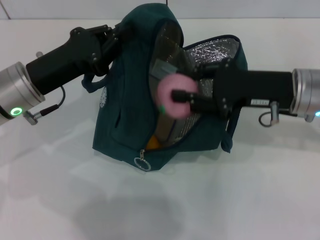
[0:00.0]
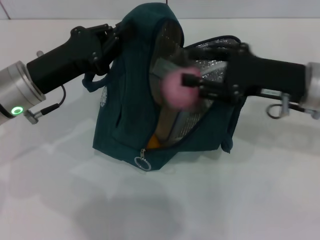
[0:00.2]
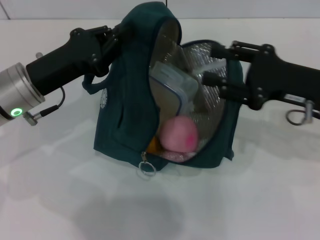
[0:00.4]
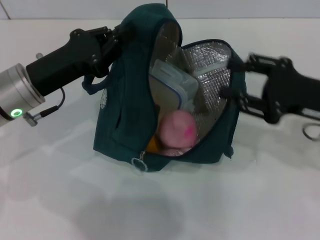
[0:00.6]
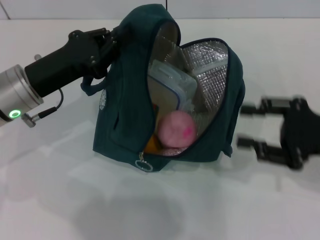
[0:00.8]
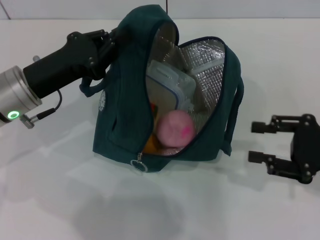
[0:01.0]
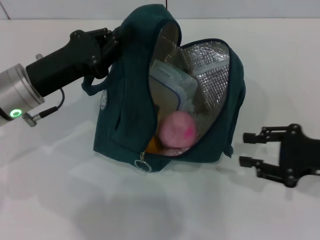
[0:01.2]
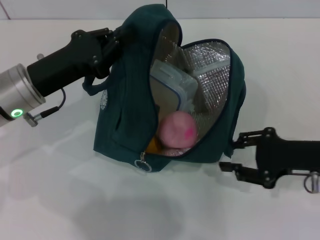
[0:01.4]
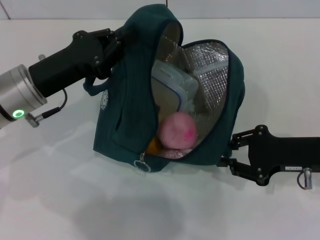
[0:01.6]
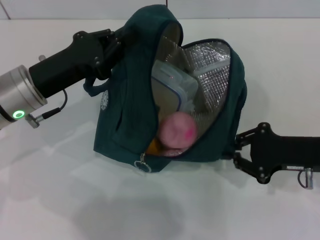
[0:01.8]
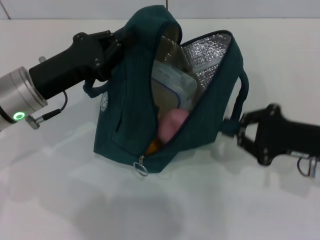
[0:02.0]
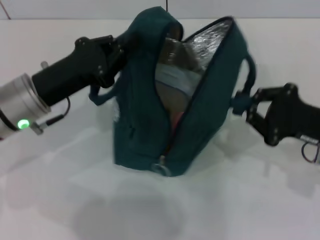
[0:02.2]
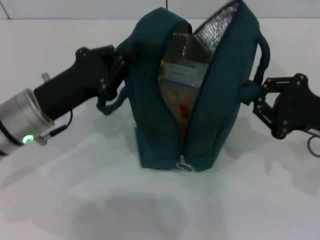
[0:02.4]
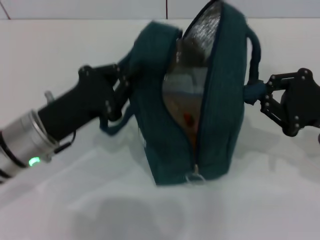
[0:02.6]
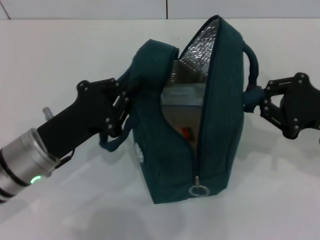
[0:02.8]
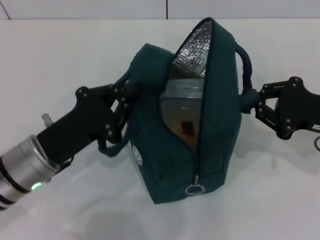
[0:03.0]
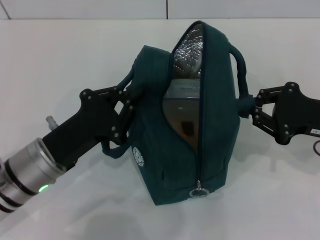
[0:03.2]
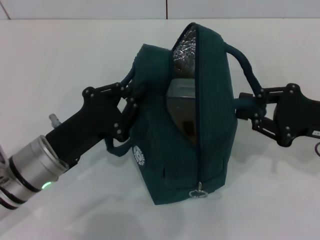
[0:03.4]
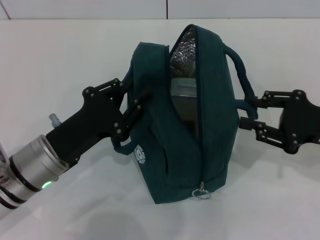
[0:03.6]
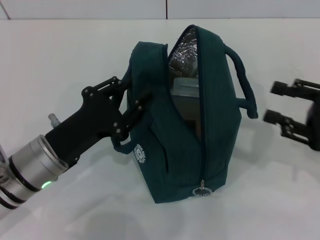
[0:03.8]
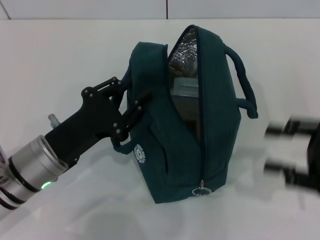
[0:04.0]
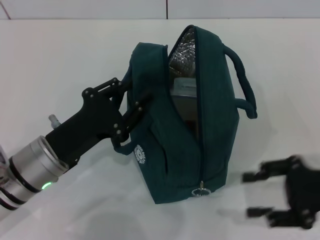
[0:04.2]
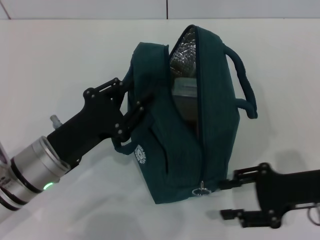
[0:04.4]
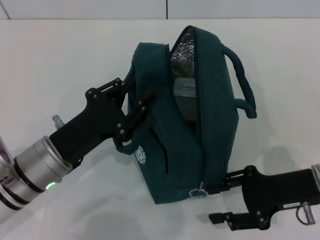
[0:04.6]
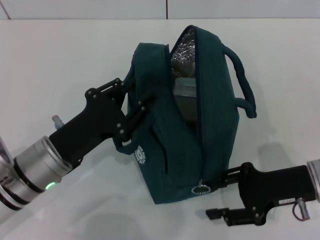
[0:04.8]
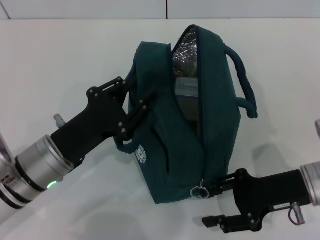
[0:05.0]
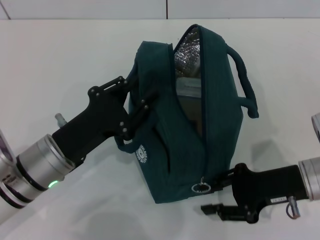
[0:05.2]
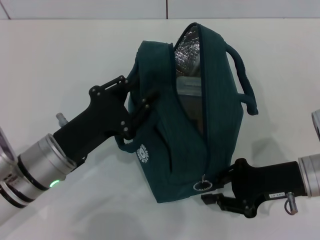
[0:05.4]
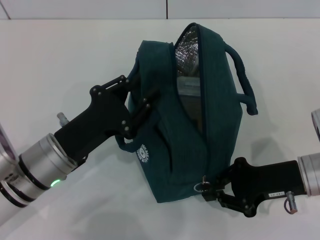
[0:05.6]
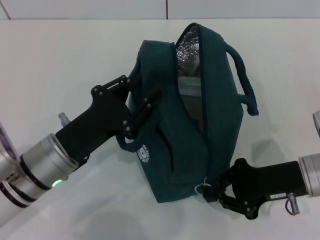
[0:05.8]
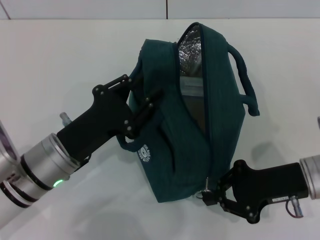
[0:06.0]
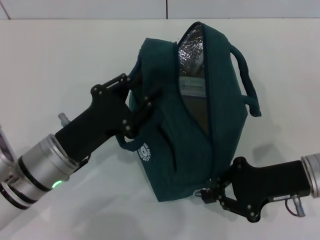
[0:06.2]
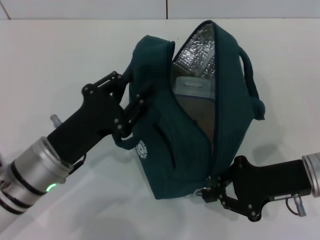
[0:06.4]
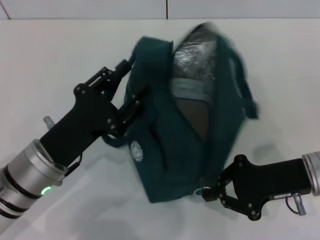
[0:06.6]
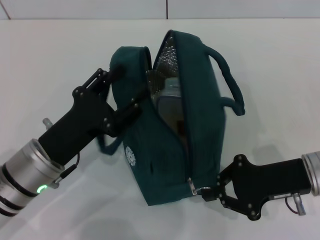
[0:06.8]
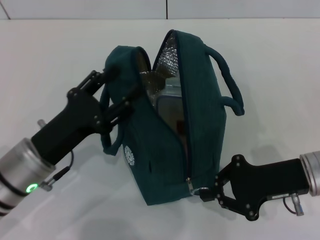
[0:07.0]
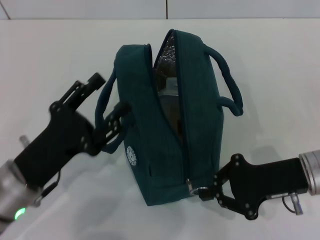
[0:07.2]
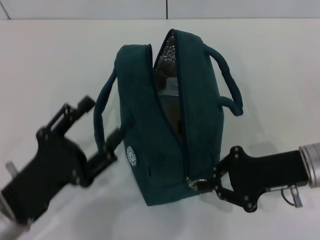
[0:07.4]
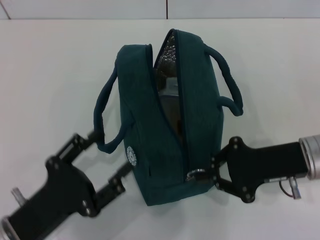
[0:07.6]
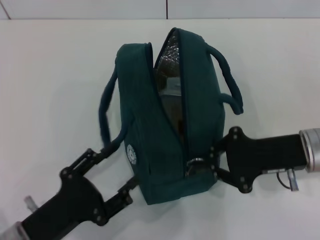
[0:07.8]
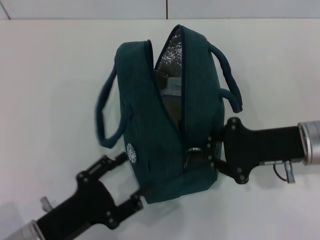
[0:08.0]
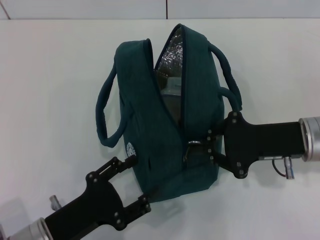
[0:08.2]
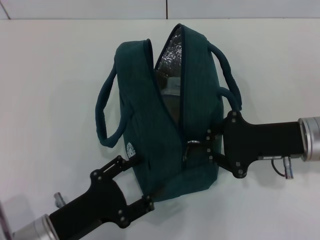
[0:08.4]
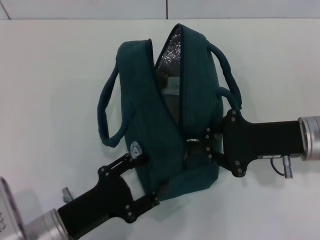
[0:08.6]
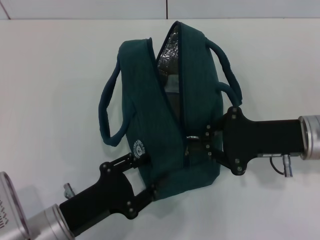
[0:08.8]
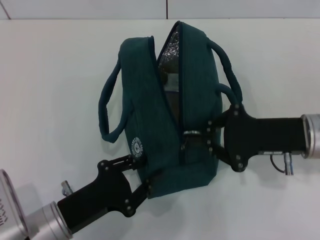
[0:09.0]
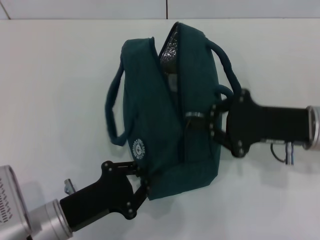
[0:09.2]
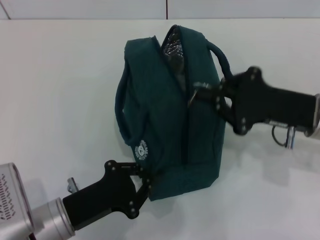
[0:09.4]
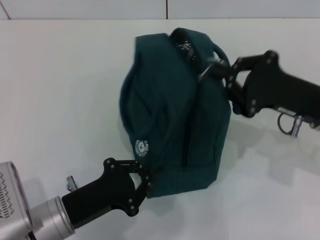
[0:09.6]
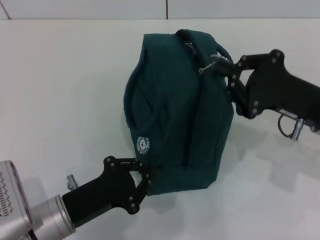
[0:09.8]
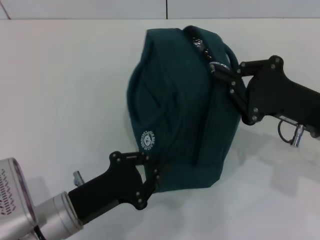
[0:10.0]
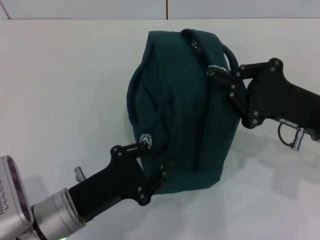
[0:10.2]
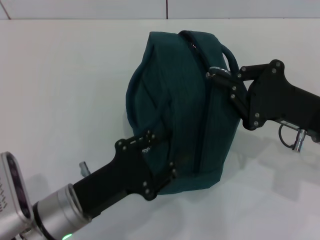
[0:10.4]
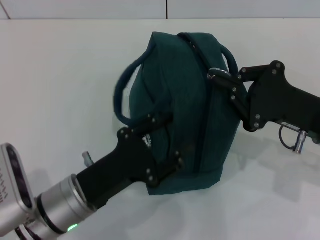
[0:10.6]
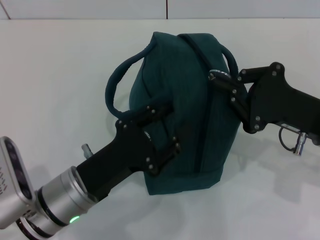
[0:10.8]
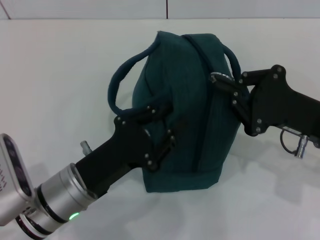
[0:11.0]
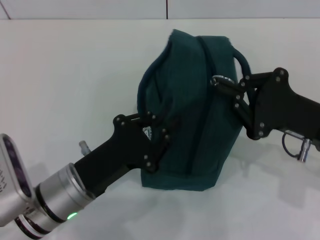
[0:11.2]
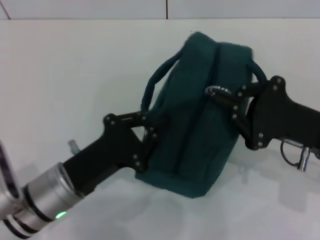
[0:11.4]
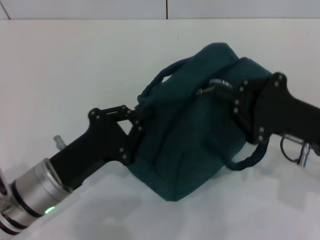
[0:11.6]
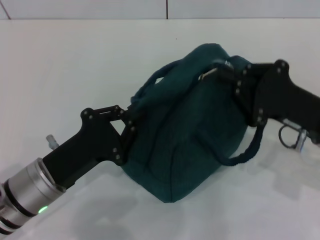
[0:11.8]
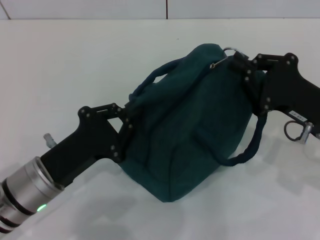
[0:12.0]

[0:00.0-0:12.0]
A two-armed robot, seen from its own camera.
Step, 0:00.4 to 0:03.6: Hold the lunch bag with your right hand.
Step, 0:03.8 to 0:07.0: Hold the lunch bag with your left hand.
0:00.0 to 0:01.6: The right gripper shifts roughly 10 cm downward and to the right.
0:01.6 to 0:03.0: The right gripper closes its fingers. The left gripper is displaced backward and downward by some 10 cm.
0:03.0 to 0:04.4: The right gripper changes place by approximately 5 cm, and opens.
0:04.4 to 0:06.0: The right gripper closes up.
0:06.0 to 0:07.6: The left gripper heads backward, covering roughly 10 cm, and opens up.
0:07.6 to 0:09.0: The left gripper shifts by some 5 cm.

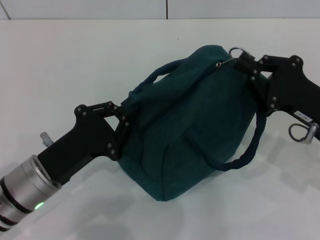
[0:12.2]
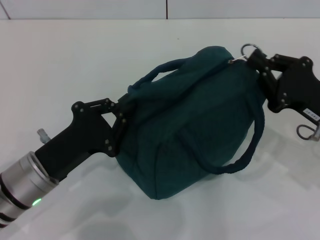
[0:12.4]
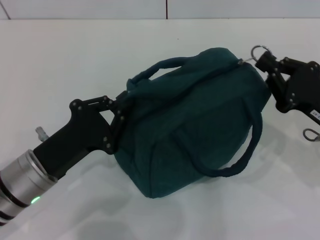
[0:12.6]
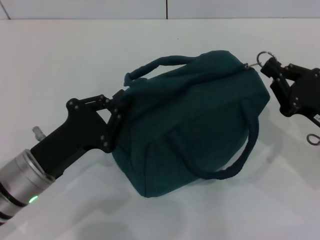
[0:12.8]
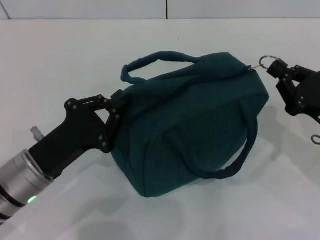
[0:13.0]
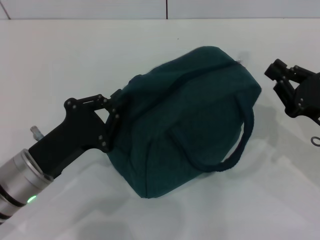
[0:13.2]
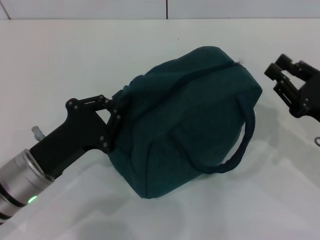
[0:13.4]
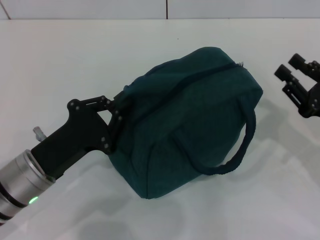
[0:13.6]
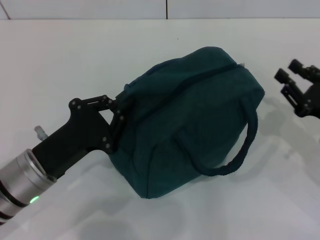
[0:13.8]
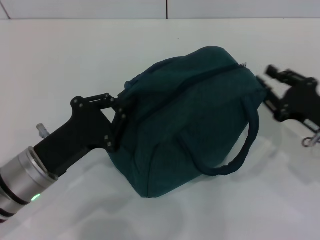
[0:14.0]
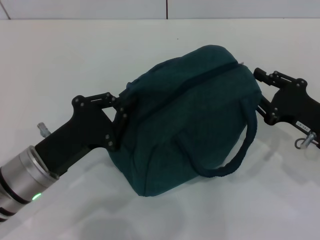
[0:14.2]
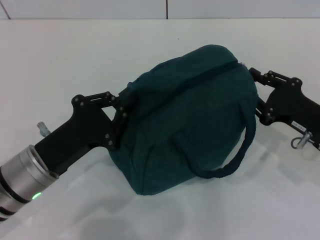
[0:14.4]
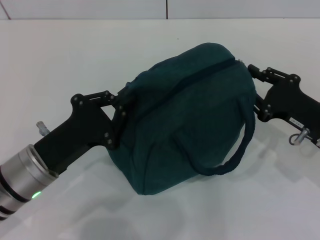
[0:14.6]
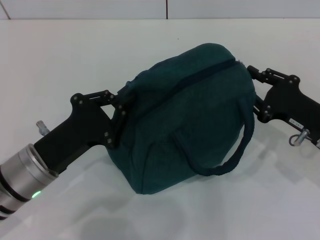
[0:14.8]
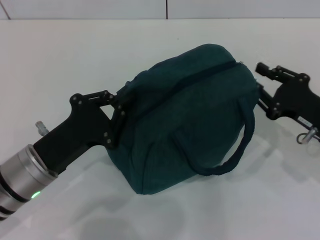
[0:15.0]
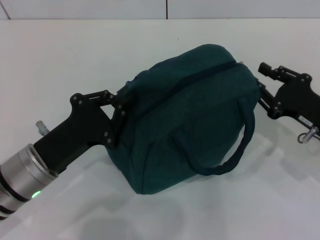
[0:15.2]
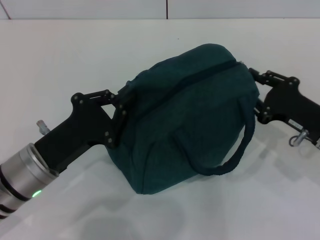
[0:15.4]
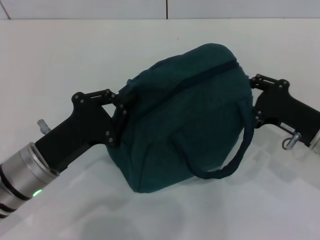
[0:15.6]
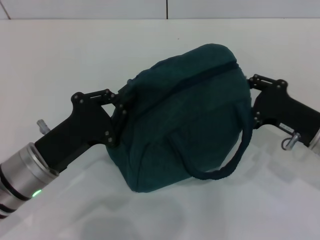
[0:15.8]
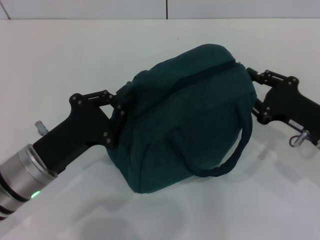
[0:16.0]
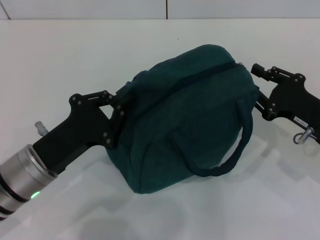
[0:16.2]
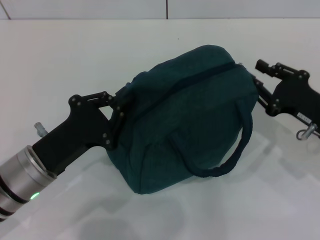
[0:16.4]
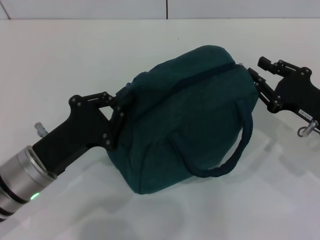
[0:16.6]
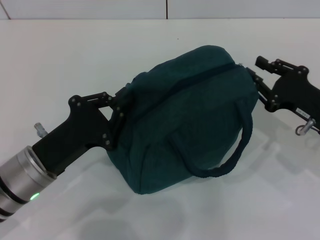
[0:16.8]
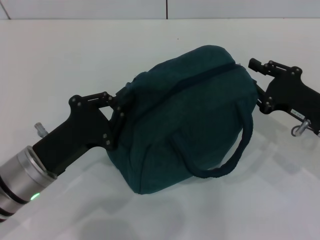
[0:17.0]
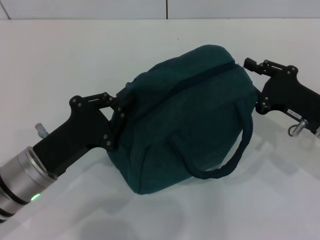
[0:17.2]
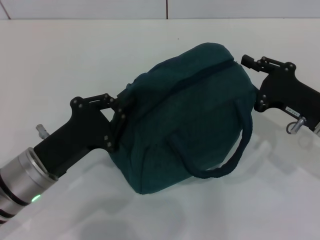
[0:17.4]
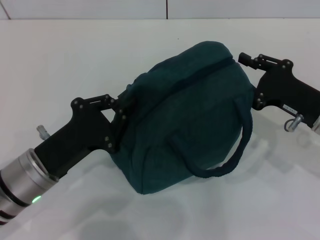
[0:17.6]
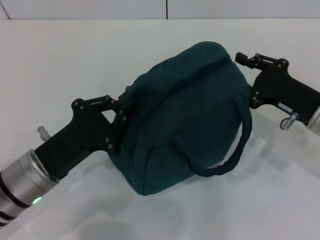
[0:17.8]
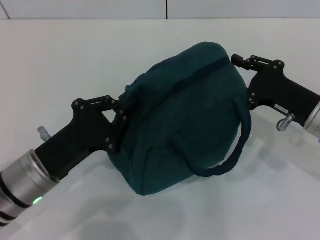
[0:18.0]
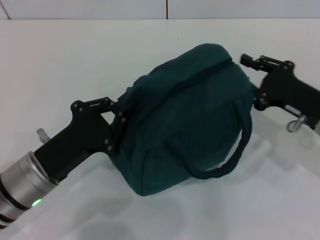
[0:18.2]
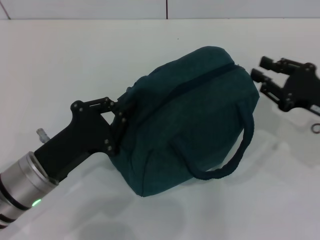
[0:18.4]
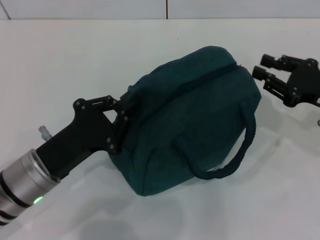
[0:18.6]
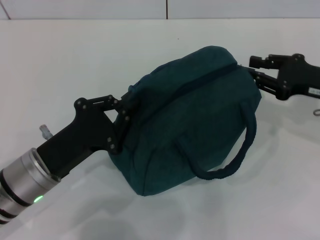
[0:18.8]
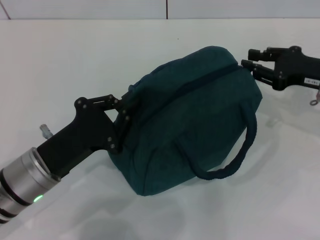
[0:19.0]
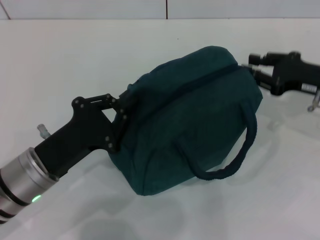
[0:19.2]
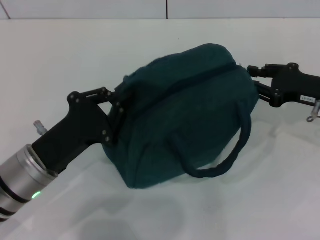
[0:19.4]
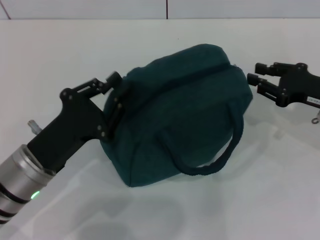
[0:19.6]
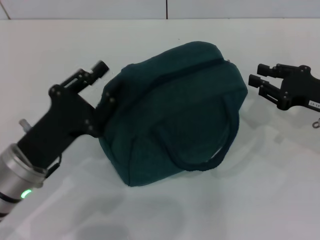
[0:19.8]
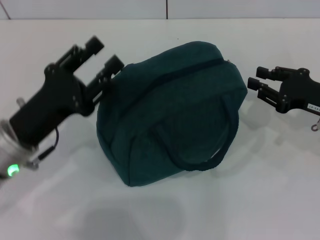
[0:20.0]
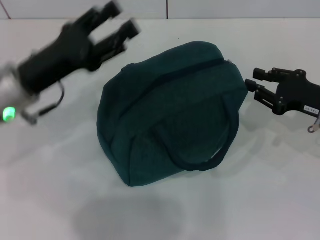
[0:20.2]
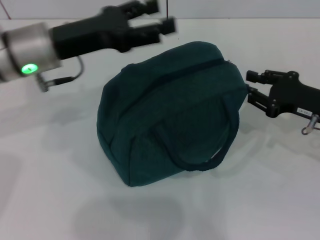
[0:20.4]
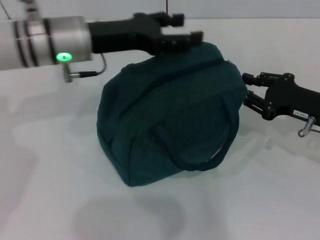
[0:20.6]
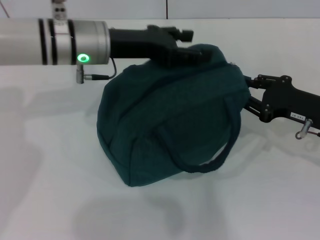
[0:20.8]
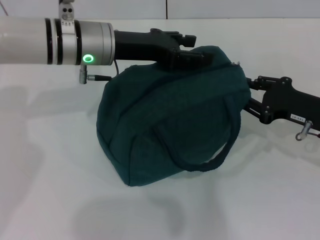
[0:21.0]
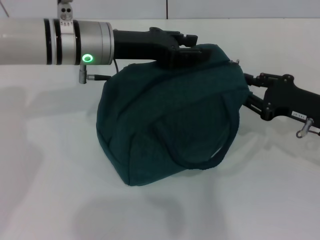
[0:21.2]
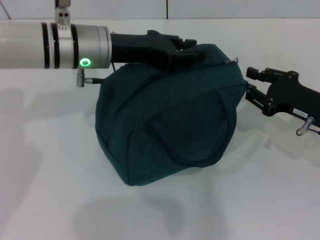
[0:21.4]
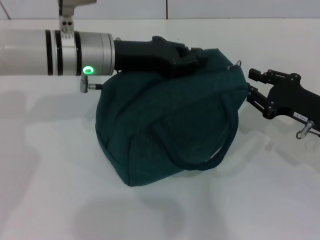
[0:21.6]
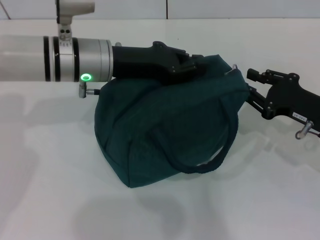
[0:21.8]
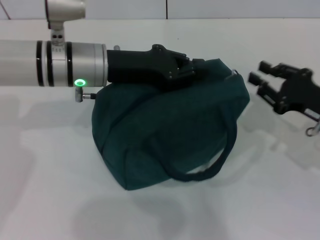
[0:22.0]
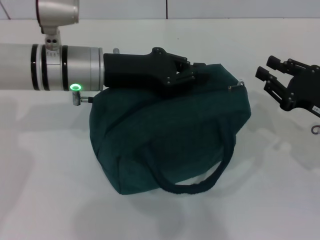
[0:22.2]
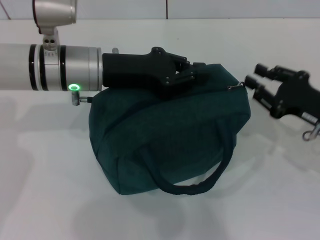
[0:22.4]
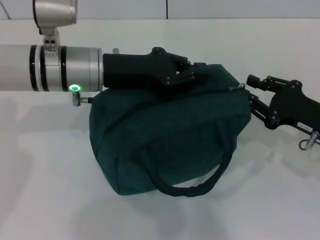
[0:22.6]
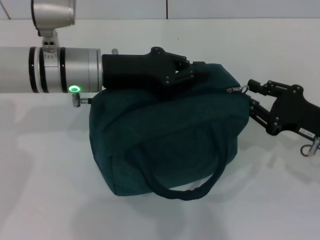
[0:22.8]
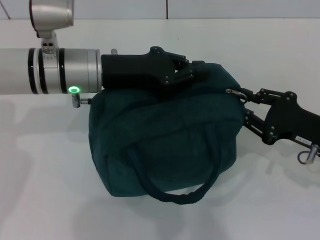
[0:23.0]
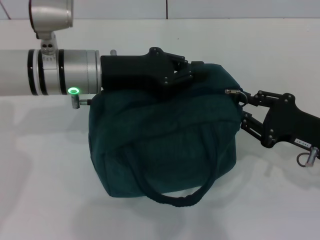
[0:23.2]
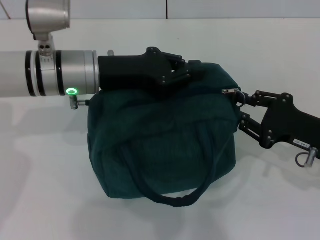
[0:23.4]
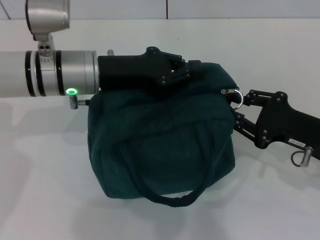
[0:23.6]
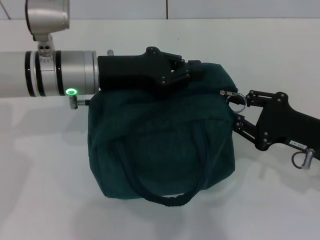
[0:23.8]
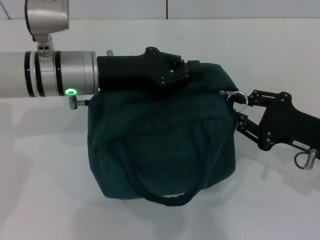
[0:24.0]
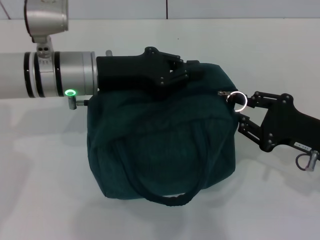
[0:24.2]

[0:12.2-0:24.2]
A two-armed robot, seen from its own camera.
0:12.2 to 0:13.8: The right gripper heads to the right, covering about 5 cm, and opens its fingers.
0:13.8 to 0:16.6: The grippers make only small movements.
0:16.6 to 0:18.2: There are only small adjustments of the grippers.
0:19.8 to 0:21.2: The left gripper shifts about 20 cm forward, upward and to the right, and opens.
0:21.2 to 0:22.6: The left gripper closes up.
0:22.6 to 0:24.2: The grippers stay close to where they were, moving slightly.
